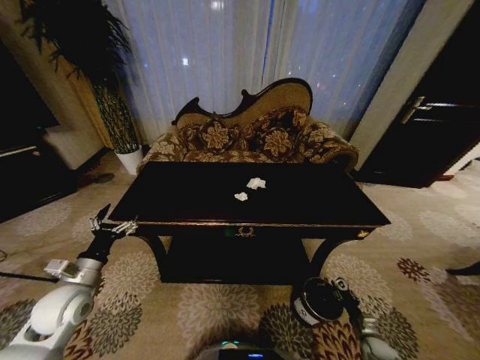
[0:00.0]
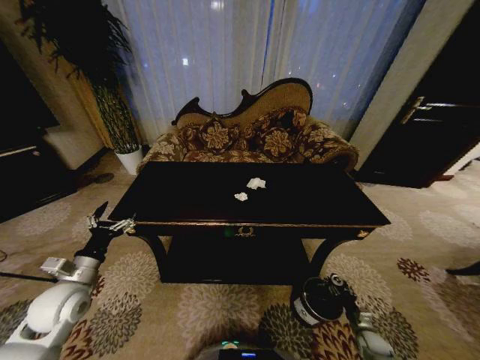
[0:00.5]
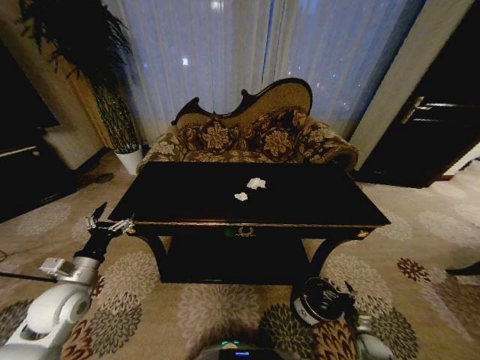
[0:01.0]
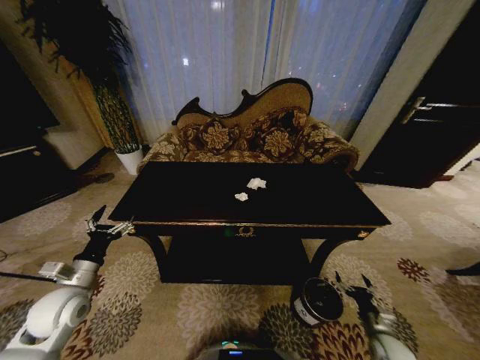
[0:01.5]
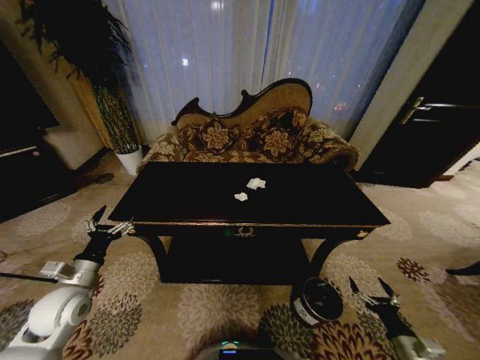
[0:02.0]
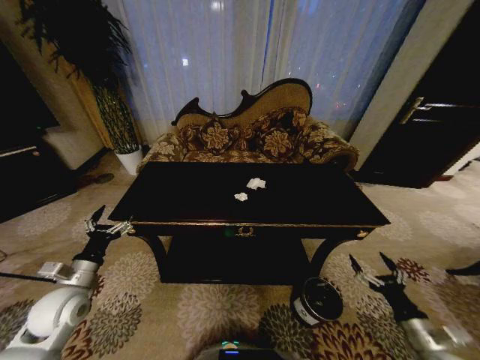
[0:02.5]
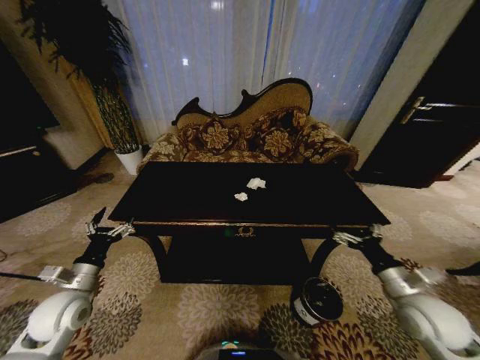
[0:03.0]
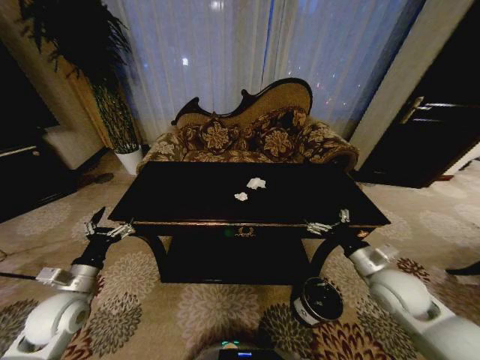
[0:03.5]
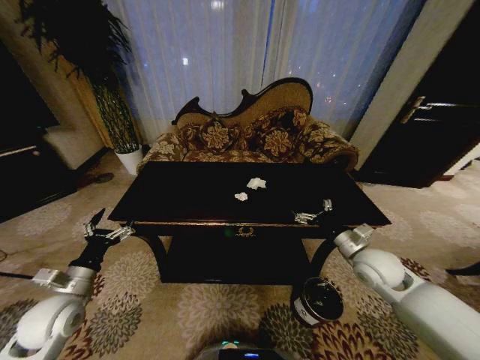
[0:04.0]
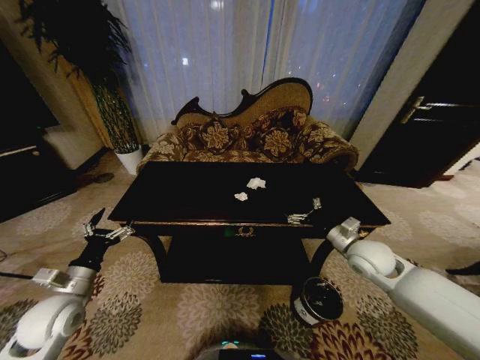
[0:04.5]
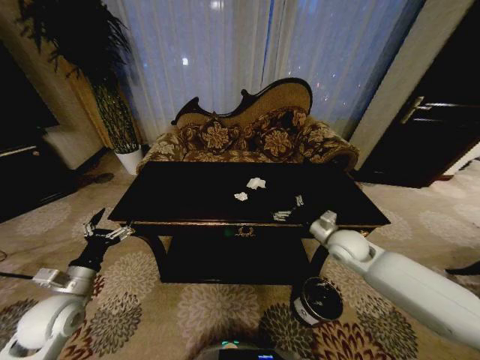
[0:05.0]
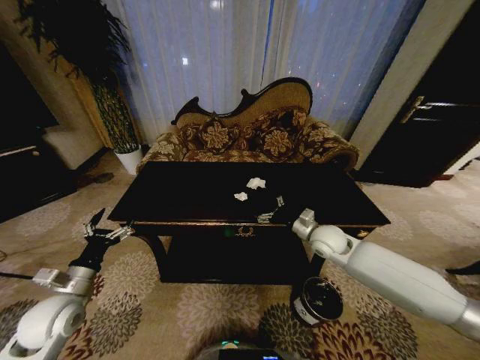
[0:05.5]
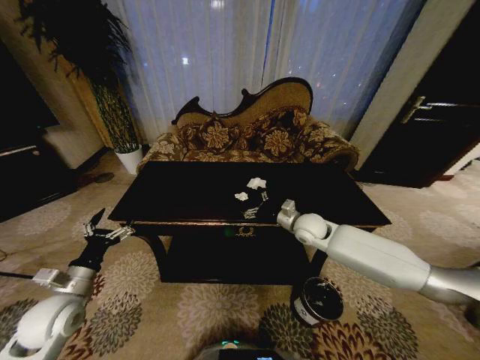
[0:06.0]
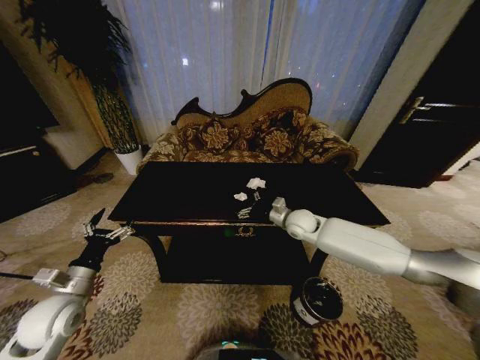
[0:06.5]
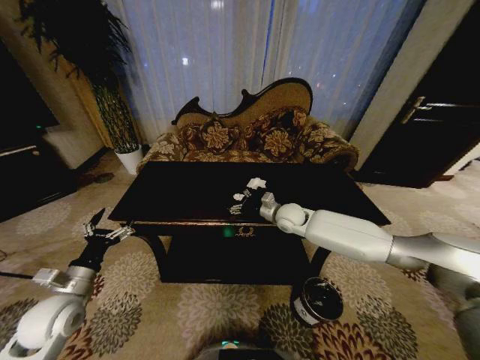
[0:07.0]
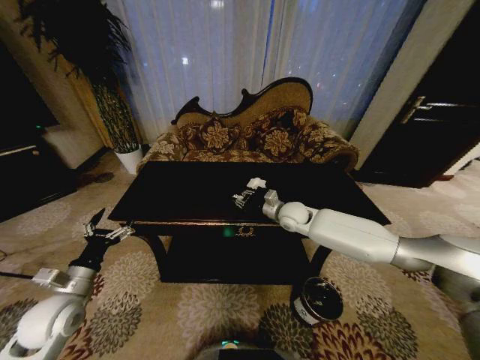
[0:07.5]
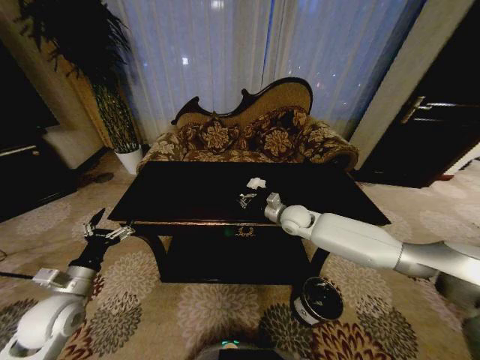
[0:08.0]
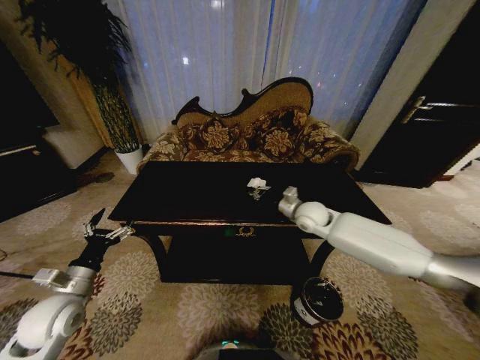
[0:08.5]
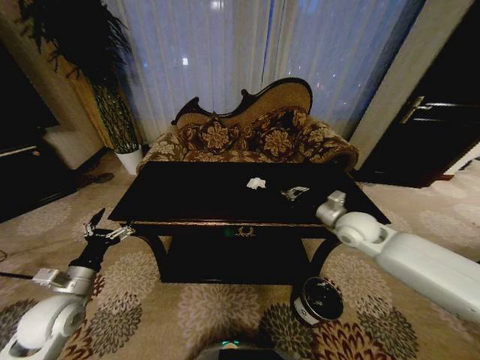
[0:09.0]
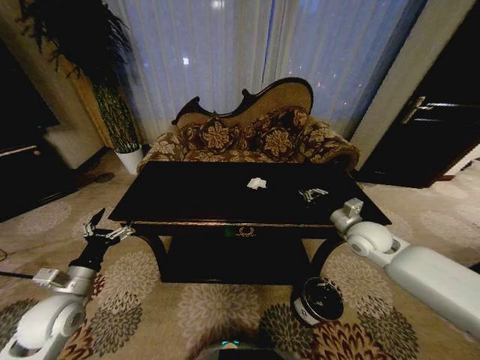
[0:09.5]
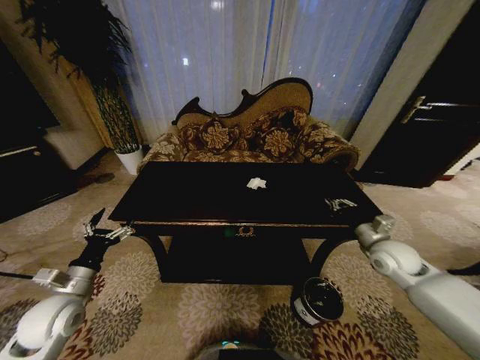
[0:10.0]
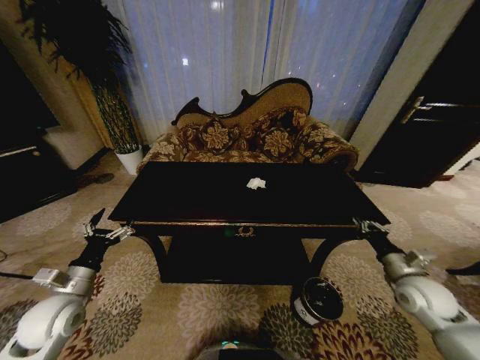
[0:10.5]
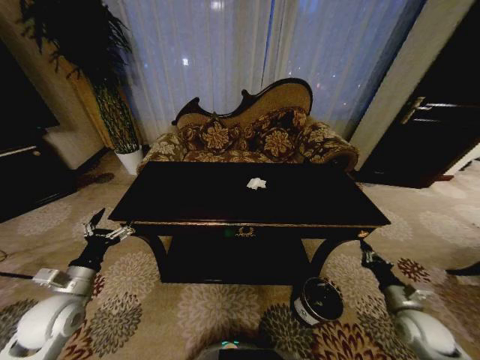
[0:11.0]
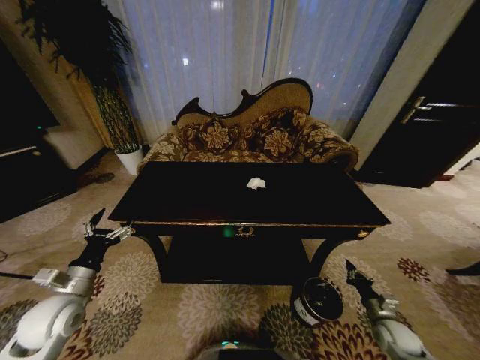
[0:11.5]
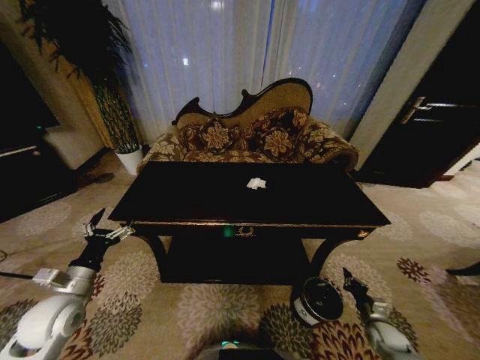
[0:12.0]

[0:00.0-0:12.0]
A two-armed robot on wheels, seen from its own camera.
Task of the whole recording: Move to the front of the table and place the trash on the table into the trash bin.
0:00.0 to 0:02.0: The right gripper heads upward and backward, covering about 15 cm, and opens.
0:02.0 to 0:04.0: The right gripper heads forward, upward and to the left, covering approximately 30 cm.
0:04.0 to 0:06.0: The right gripper heads forward and to the left, covering roughly 20 cm.
0:06.0 to 0:08.0: The right gripper moves some 5 cm, and closes up.
0:08.0 to 0:10.0: The right gripper is displaced to the right and backward by roughly 25 cm.
0:10.0 to 0:12.0: The right gripper goes about 30 cm downward and backward.

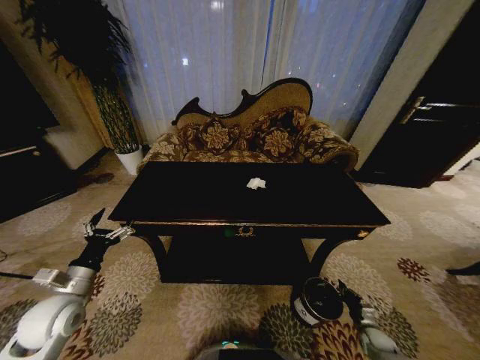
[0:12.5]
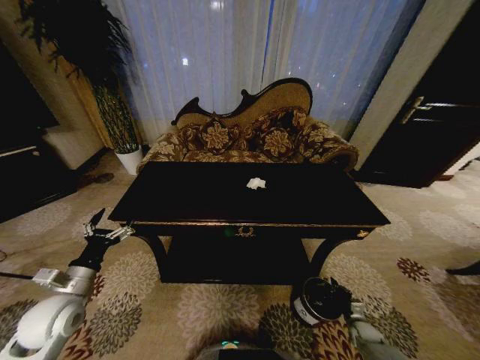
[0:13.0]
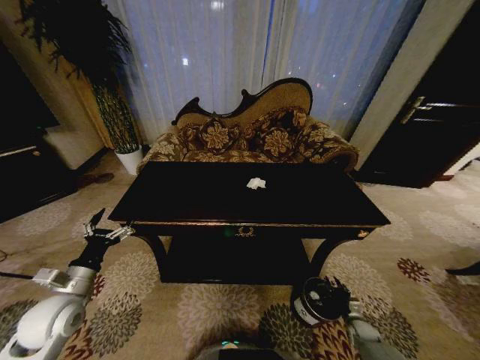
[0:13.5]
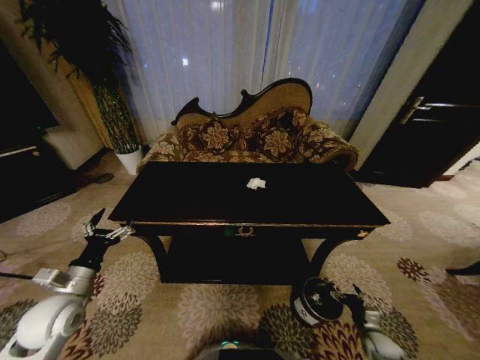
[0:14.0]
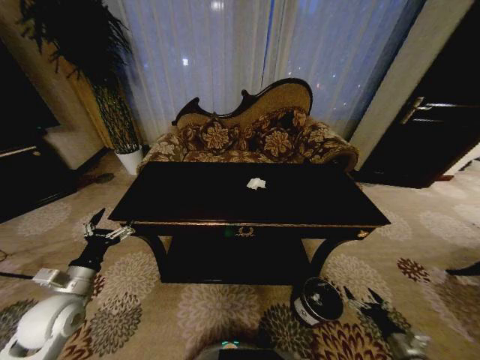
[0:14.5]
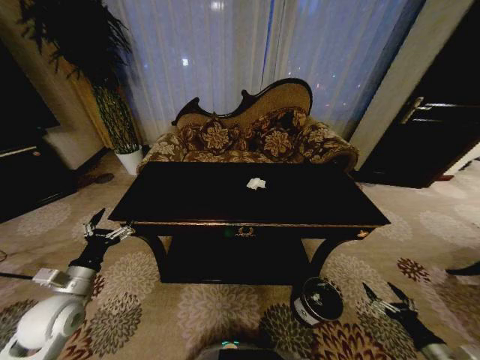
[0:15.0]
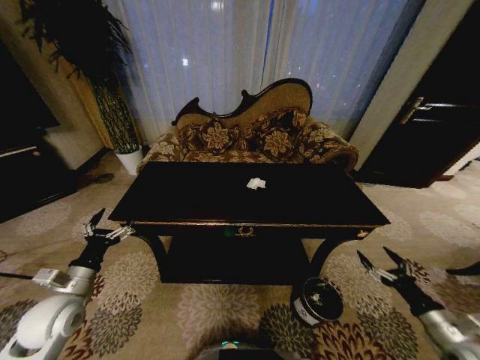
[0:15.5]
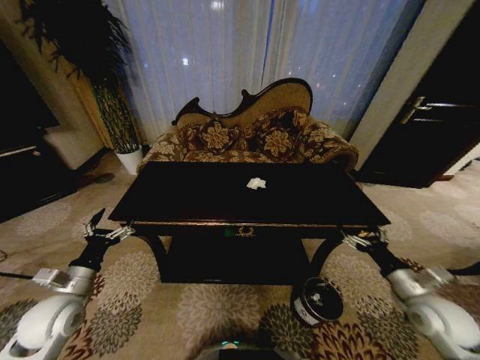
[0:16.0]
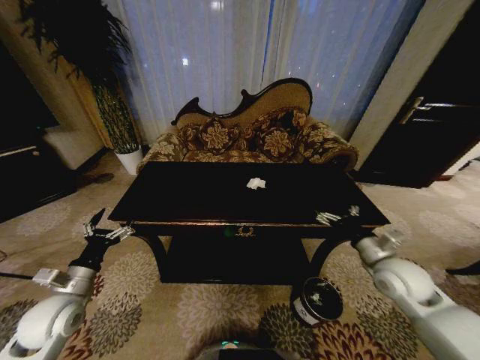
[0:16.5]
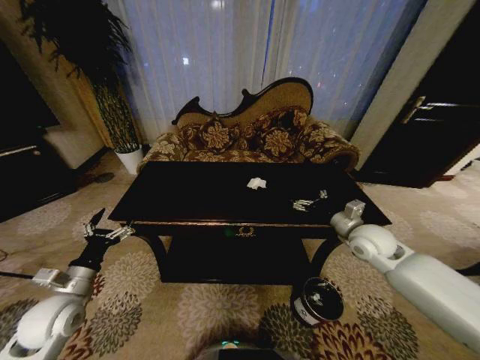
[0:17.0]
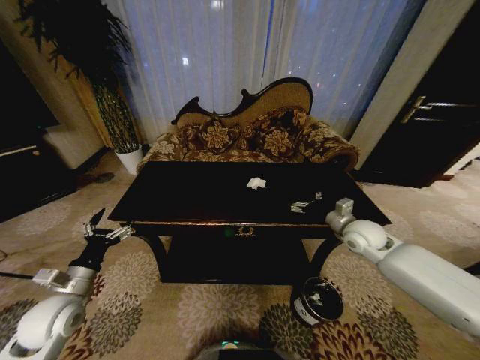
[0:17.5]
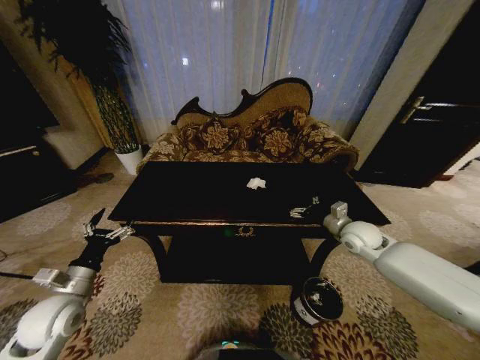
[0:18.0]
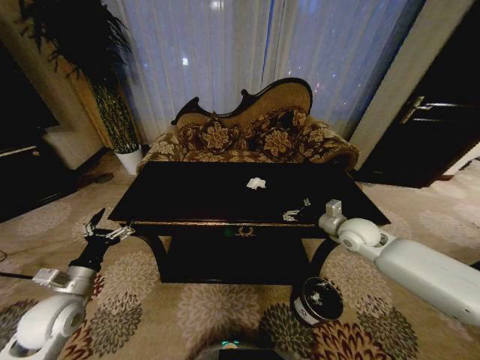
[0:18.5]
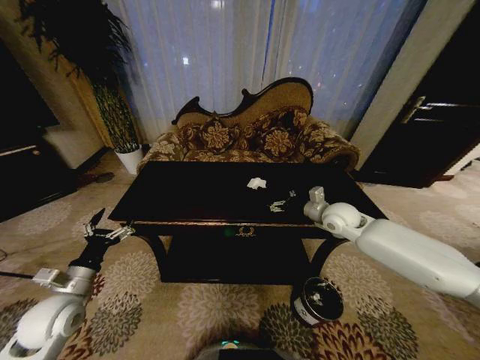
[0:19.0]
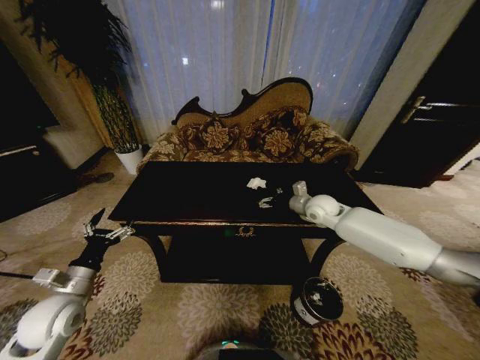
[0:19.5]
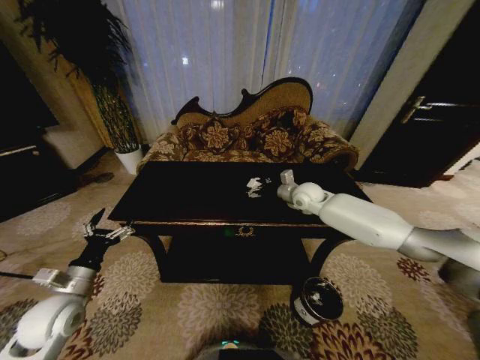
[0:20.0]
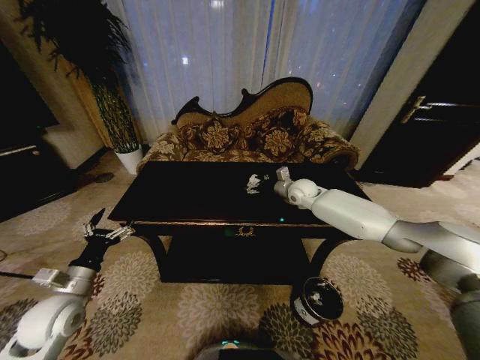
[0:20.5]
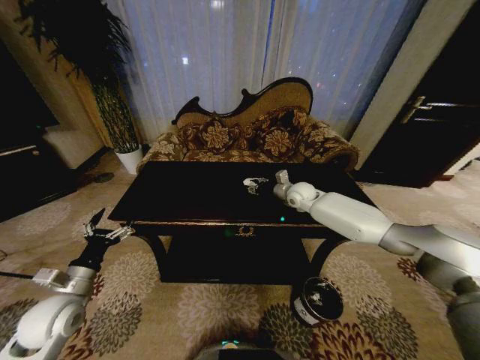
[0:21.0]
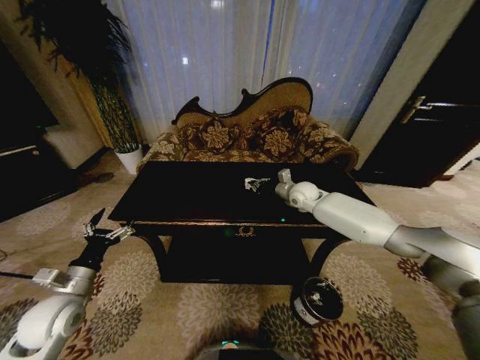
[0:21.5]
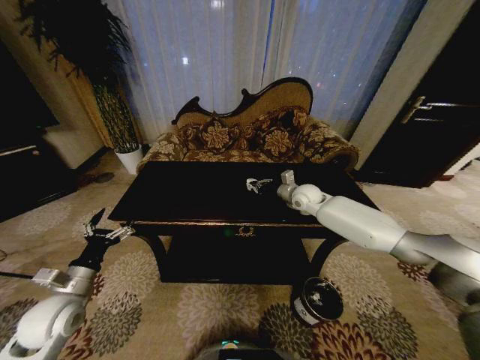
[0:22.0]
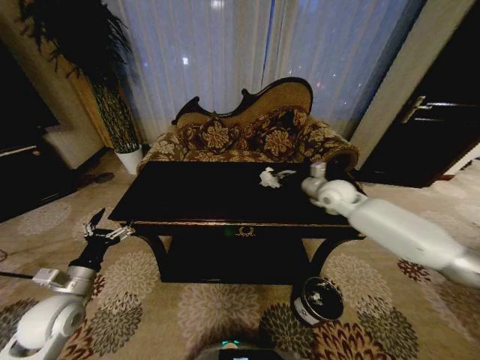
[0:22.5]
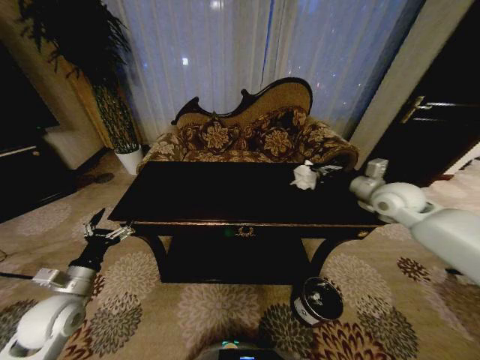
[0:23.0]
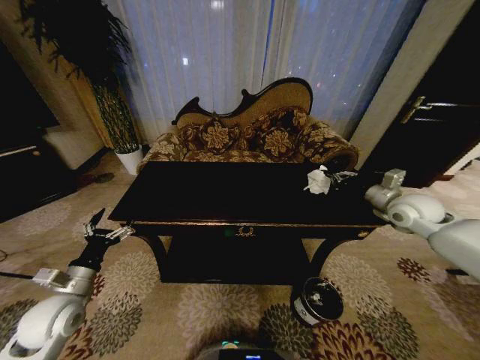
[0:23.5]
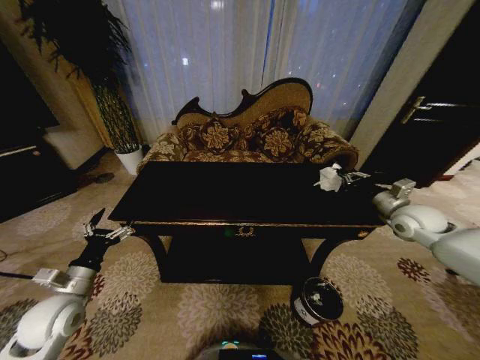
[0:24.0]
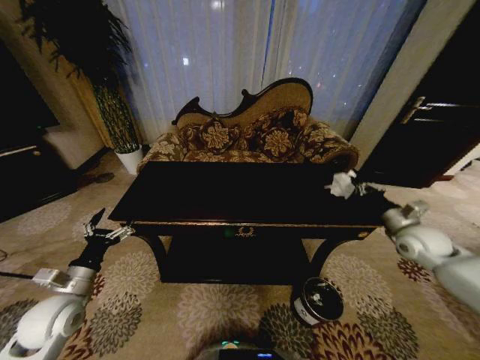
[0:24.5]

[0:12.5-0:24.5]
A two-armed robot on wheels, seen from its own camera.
Task of the whole recording: Move to the front of the table and place the trash on the table into the trash bin.
0:12.5 to 0:14.5: The right gripper is displaced upward and backward by roughly 15 cm, and opens its fingers.
0:14.5 to 0:16.5: The right gripper is displaced upward, forward and to the left by some 35 cm.
0:16.5 to 0:18.5: The right gripper goes some 10 cm forward.
0:18.5 to 0:20.5: The right gripper shifts roughly 20 cm forward and to the left.
0:20.5 to 0:22.5: The right gripper moves to the right and backward, some 10 cm, and closes up.
0:22.5 to 0:24.5: The right gripper shifts approximately 25 cm to the right and backward.

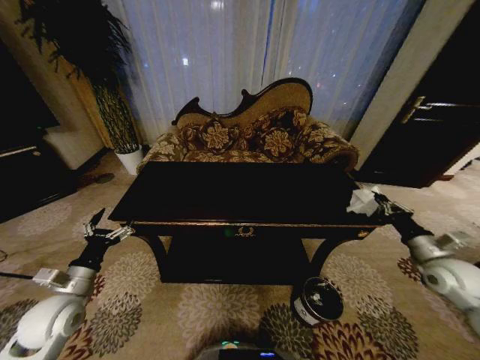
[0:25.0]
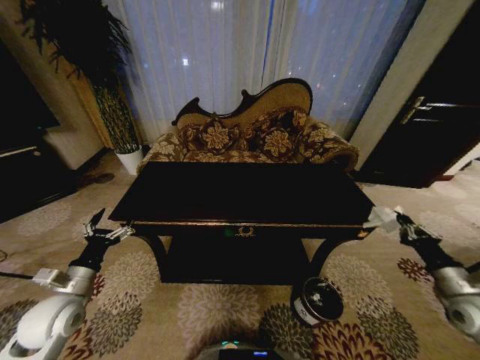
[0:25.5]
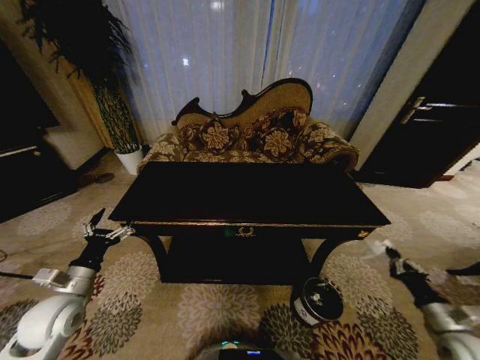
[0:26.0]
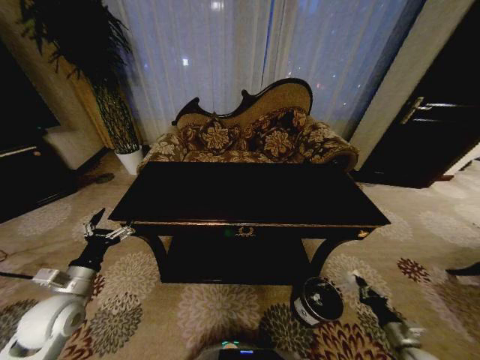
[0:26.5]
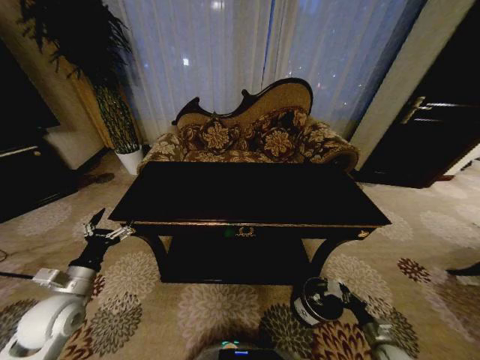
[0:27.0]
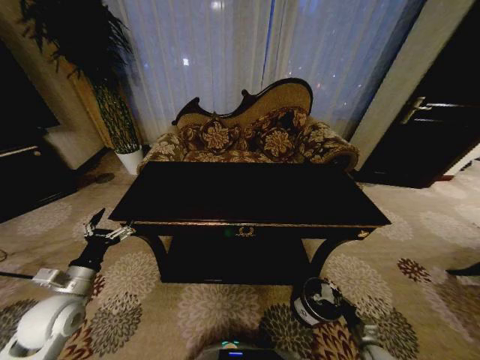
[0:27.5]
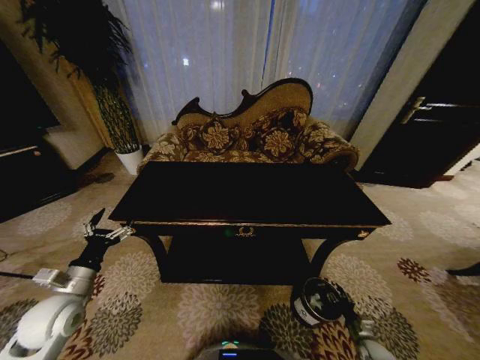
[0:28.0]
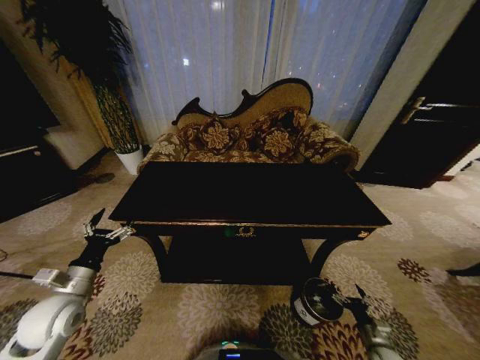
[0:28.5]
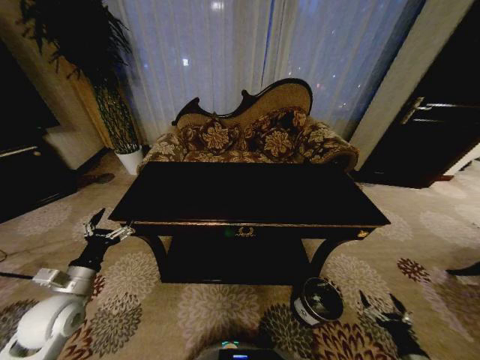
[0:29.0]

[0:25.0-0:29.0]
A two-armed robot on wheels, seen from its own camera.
Task of the whole recording: Move to the front of the table and place the trash on the table into the trash bin.
0:25.0 to 0:27.0: The right gripper heads downward and backward, covering approximately 35 cm.
0:27.0 to 0:29.0: The right gripper is displaced backward and upward by some 10 cm, and opens.
